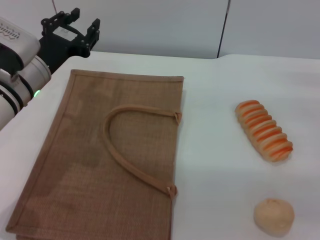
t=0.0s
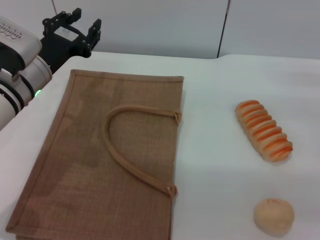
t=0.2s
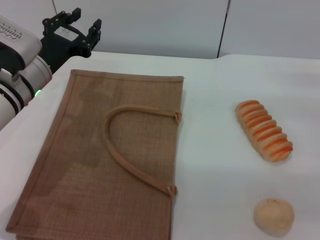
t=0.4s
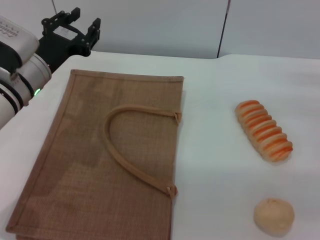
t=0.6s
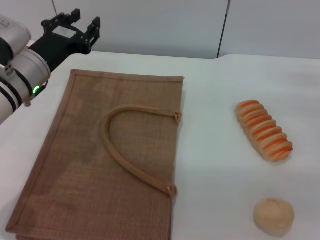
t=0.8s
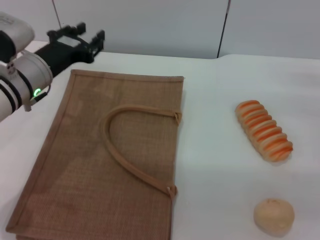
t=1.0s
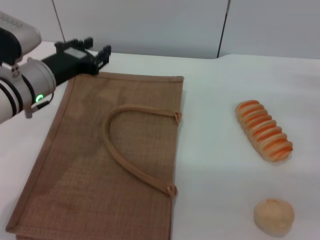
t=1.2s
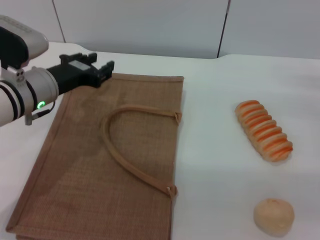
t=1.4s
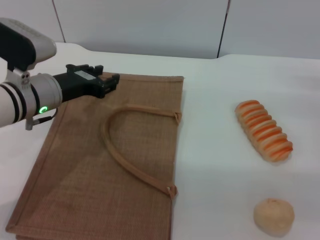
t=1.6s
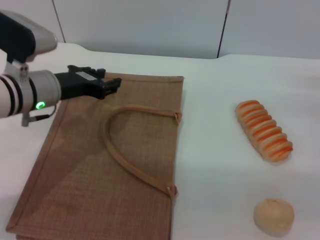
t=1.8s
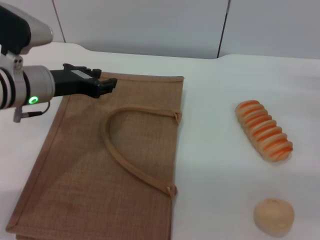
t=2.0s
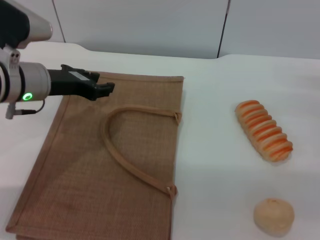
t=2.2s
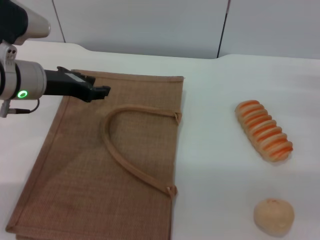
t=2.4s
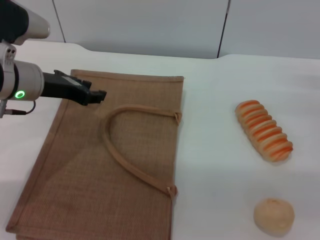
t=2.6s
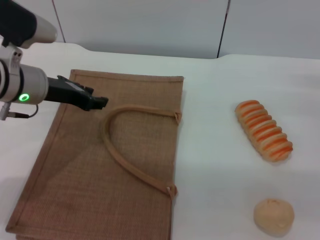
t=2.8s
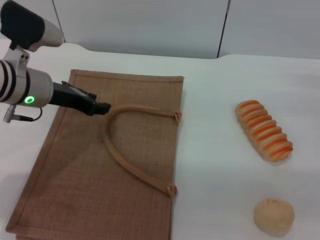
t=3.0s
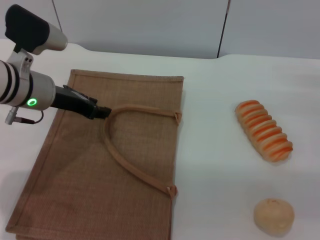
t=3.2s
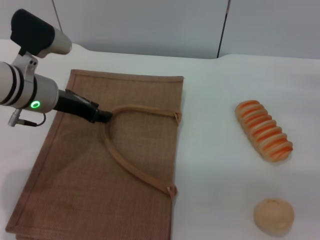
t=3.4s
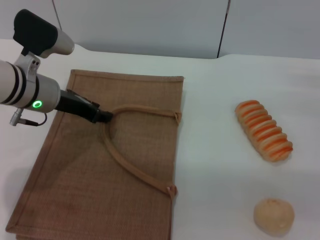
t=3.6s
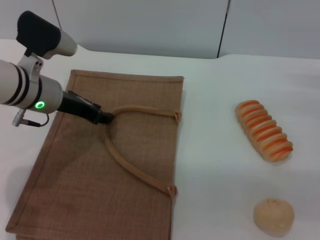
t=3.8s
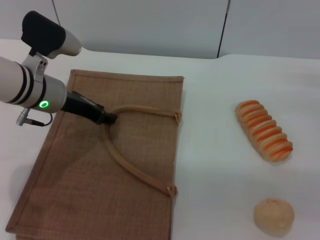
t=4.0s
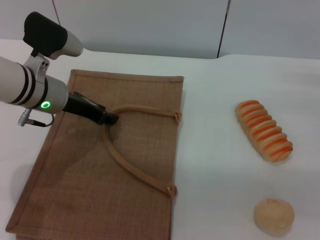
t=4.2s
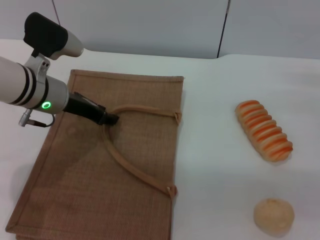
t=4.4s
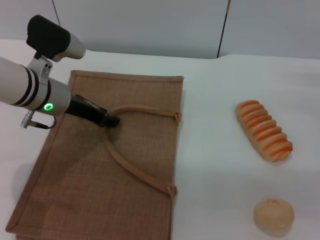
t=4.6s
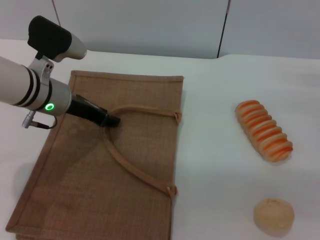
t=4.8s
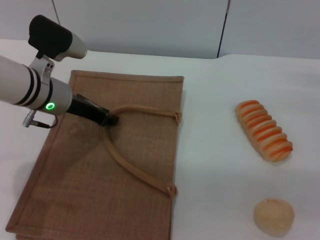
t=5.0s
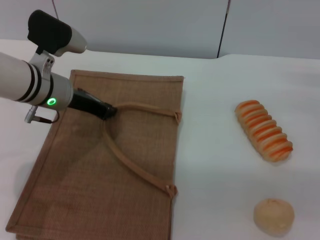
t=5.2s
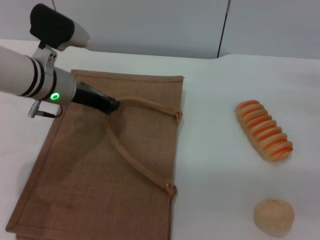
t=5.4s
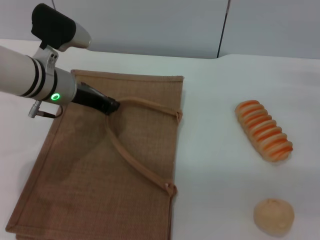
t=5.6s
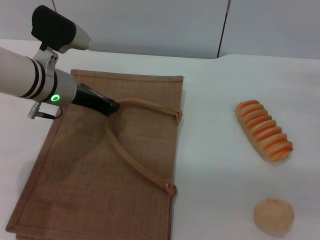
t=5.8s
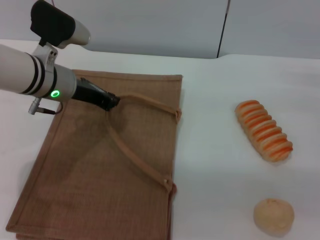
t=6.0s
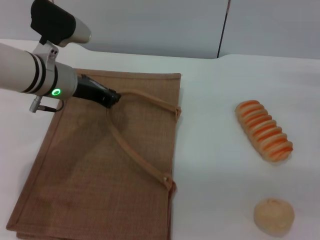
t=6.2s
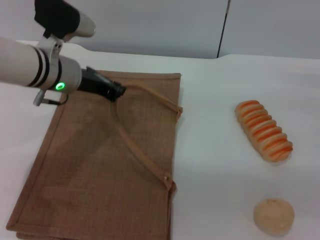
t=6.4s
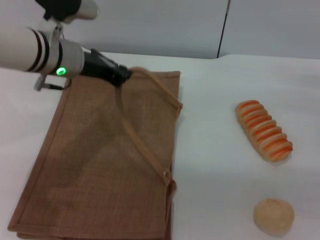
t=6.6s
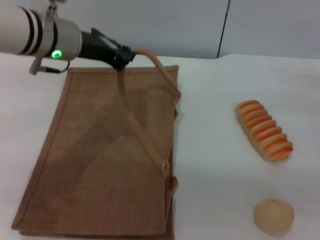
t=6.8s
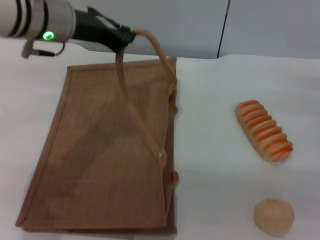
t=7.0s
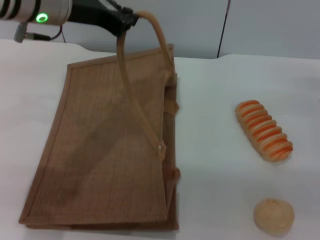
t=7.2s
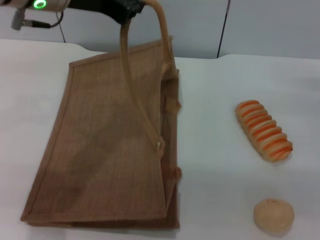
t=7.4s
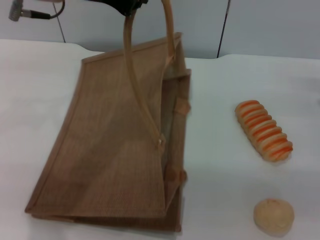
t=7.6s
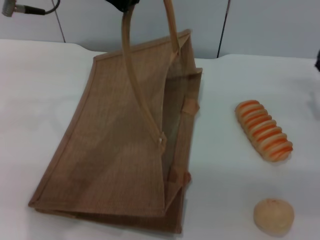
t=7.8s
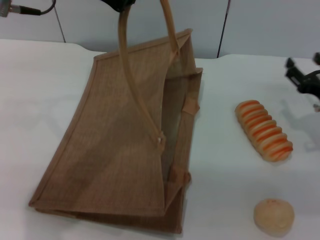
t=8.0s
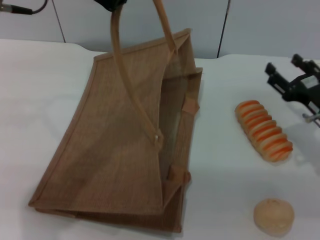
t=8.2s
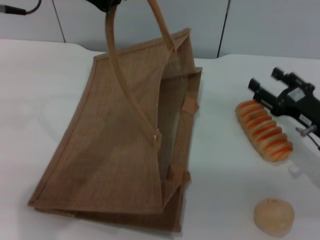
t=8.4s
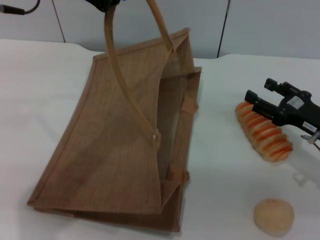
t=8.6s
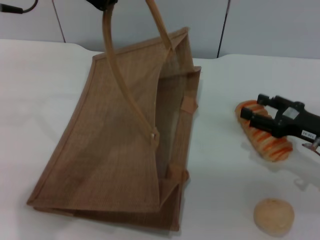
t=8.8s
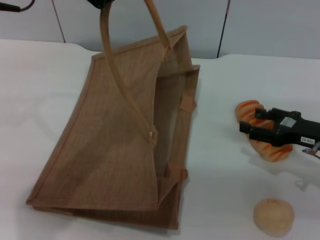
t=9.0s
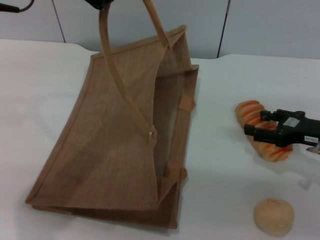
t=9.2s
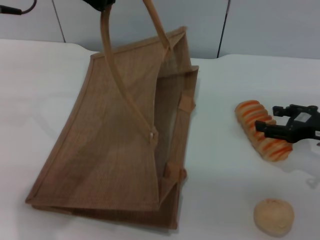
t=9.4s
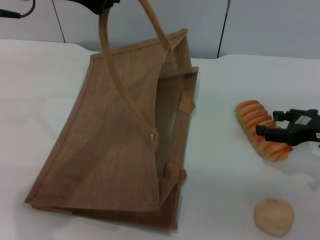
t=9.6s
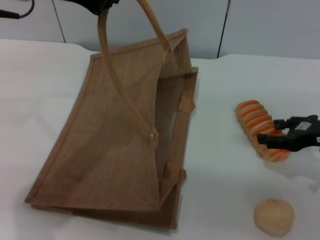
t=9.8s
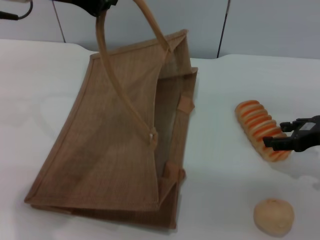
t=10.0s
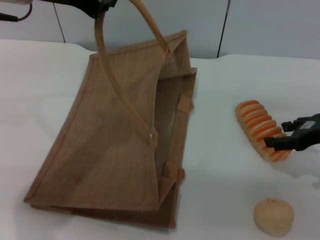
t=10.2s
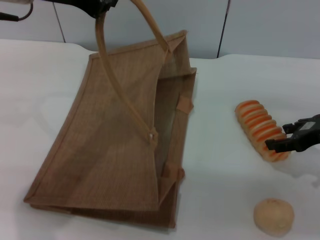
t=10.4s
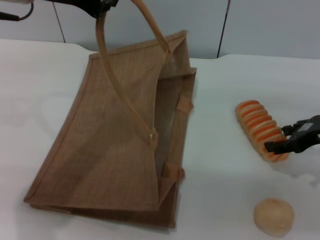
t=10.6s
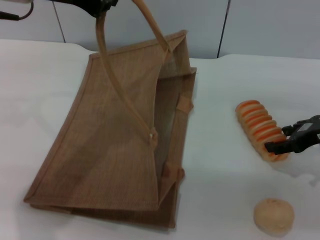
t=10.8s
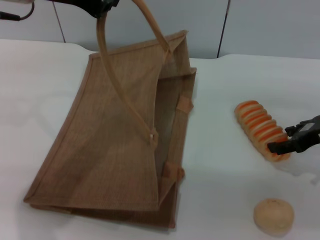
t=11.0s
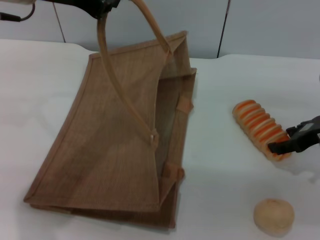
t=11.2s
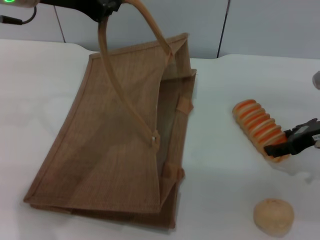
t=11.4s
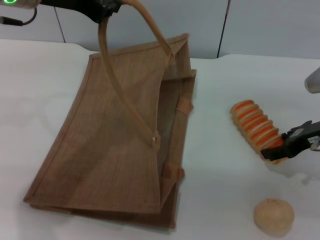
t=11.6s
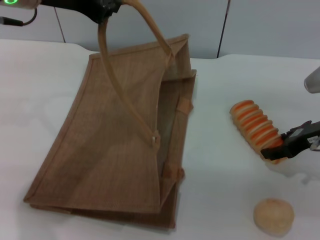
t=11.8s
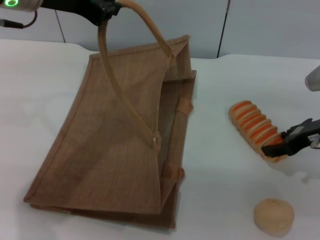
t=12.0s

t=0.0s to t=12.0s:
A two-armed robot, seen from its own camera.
Task of the whole recording: pick up the bread and egg yolk pastry from the table and place it in the brown handbag.
Step, t=0.0s to t=7.8s: Lift the woven bag with the left gripper to open it.
t=3.0s to t=4.4s: The grippers move only a little.
t=4.4s to t=6.0s: The left gripper closes.
t=6.0s to t=7.6s: The left gripper heads upward, covering roughly 15 cm.
t=9.0s to t=10.4s: The right gripper travels upward by approximately 5 cm.
t=10.4s to t=12.0s: There are only small adjustments of the grippers.

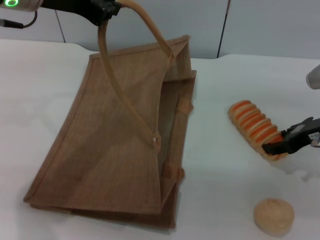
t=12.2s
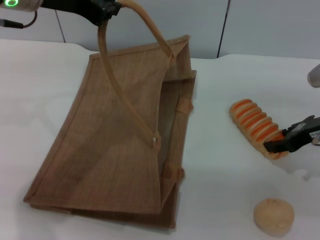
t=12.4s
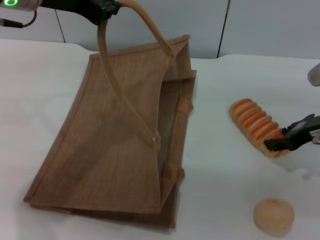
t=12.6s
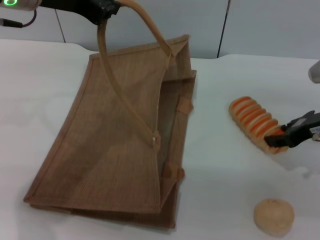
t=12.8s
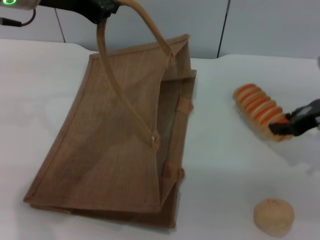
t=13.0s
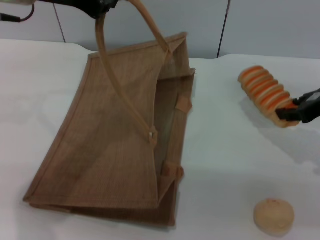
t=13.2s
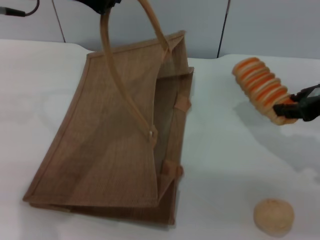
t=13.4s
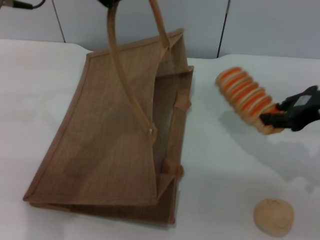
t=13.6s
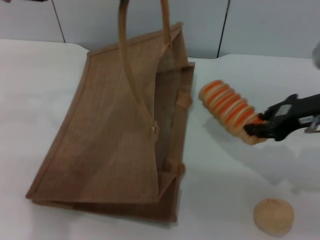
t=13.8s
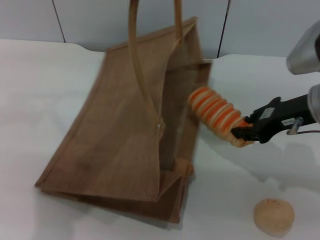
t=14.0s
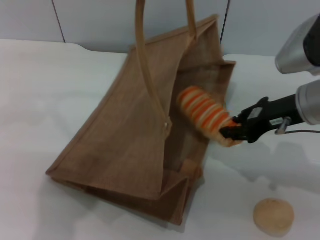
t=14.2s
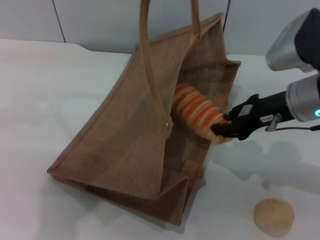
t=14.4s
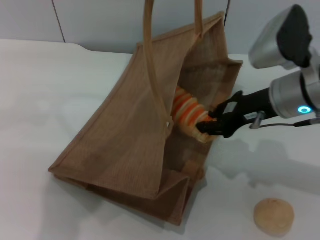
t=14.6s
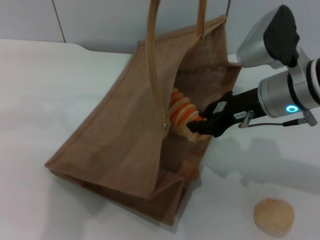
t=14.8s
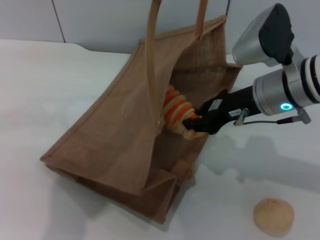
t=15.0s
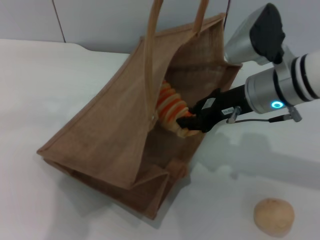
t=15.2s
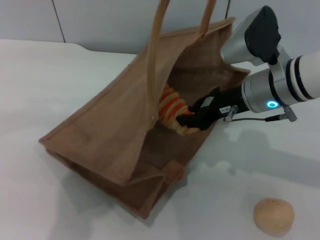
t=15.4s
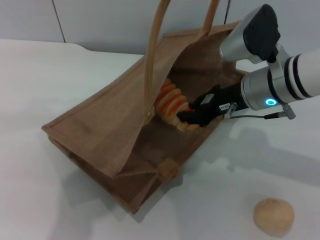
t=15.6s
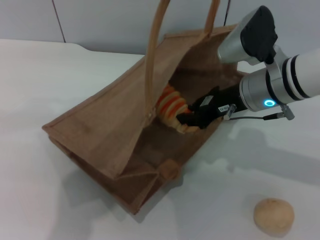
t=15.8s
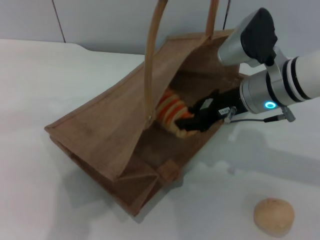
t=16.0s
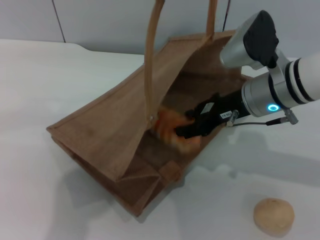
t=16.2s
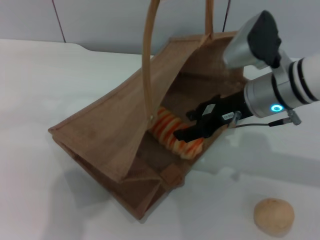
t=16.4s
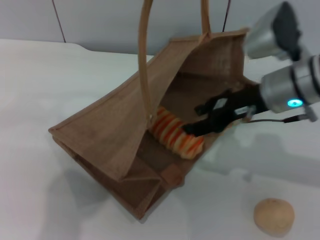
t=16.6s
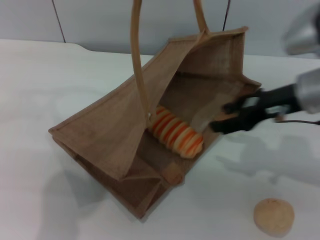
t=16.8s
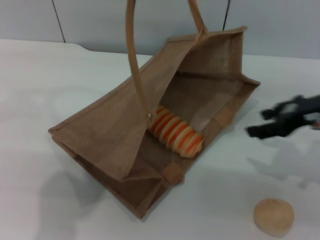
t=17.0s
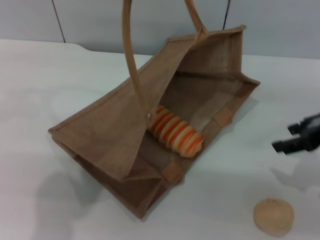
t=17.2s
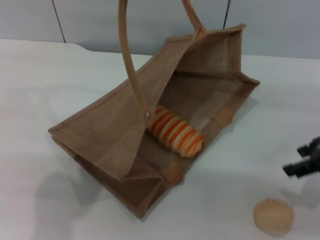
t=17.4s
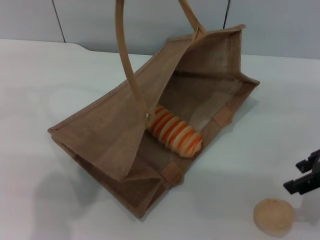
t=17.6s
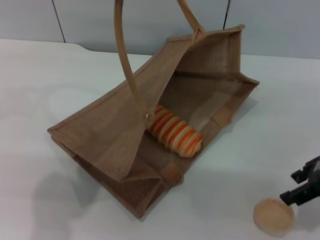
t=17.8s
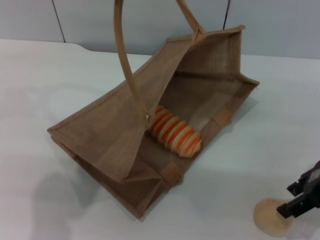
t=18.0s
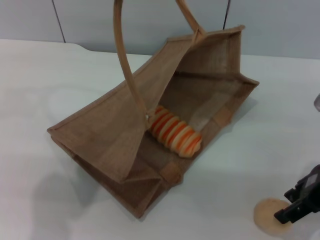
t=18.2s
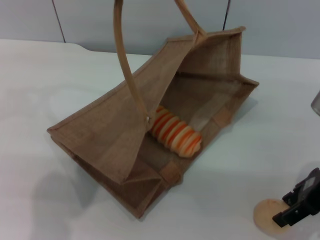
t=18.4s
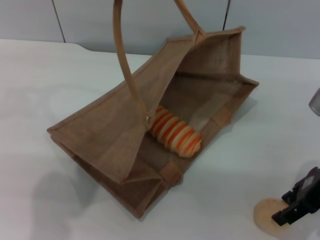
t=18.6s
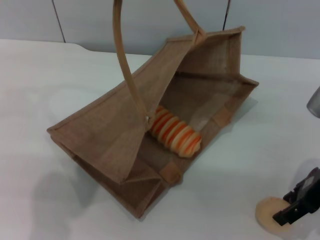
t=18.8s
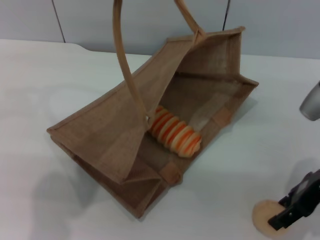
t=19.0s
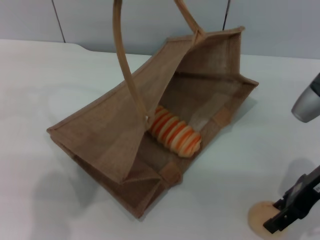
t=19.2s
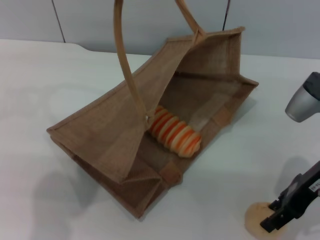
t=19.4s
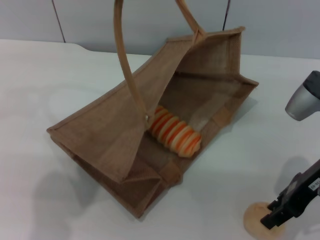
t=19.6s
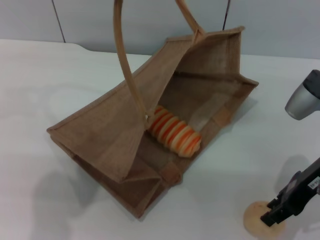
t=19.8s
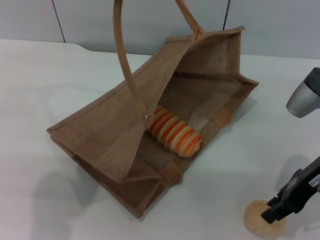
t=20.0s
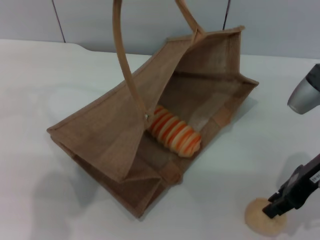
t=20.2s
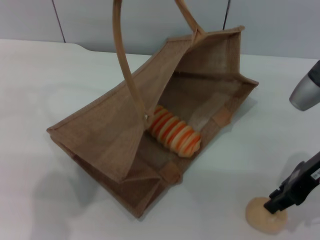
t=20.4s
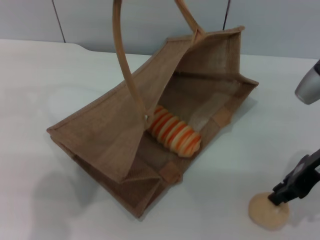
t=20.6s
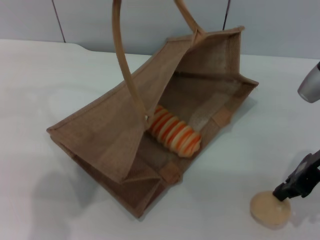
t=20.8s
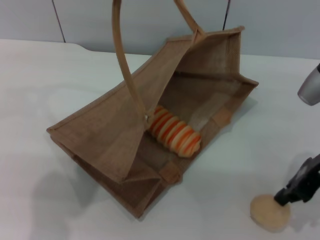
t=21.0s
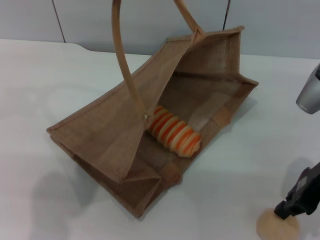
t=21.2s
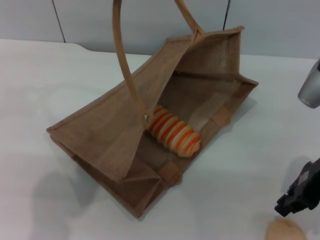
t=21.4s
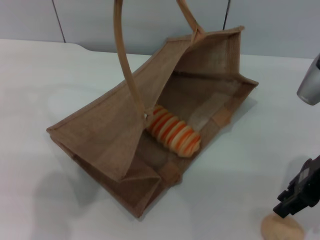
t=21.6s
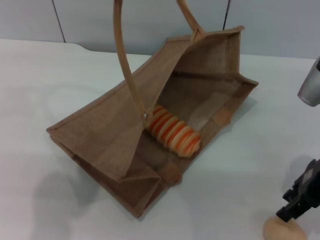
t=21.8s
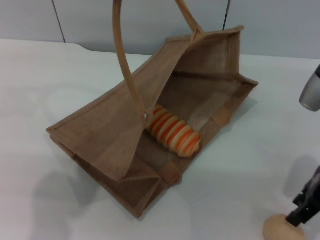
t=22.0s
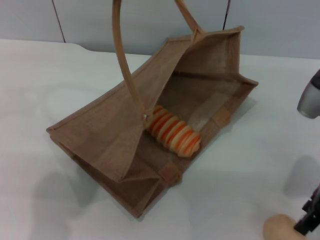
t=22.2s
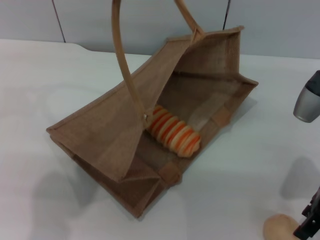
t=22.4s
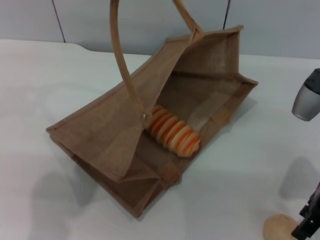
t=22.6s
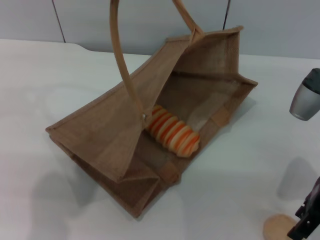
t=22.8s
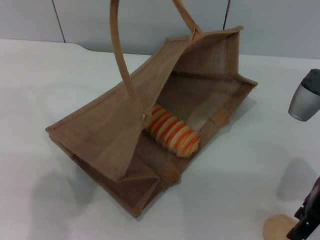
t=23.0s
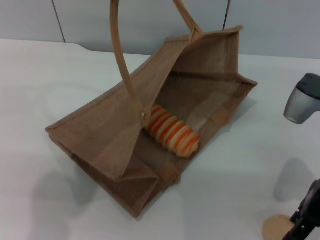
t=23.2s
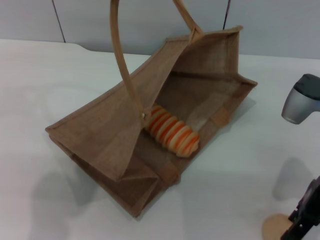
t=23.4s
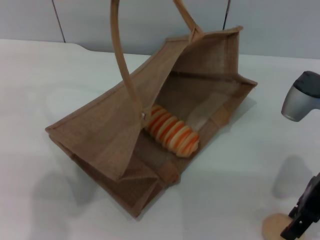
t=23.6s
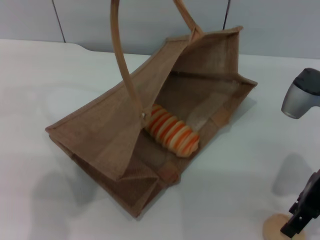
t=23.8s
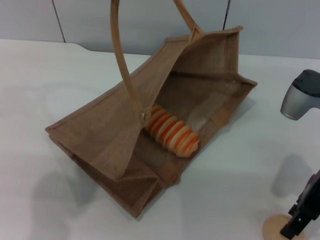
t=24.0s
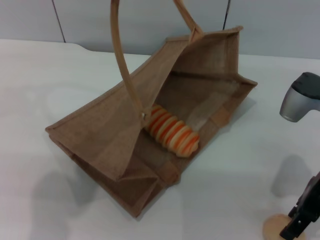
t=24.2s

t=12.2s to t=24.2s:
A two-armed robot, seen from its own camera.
Task of the whole recording: pick up the bread and egg yolk pastry from the table and place it in the brown handbag.
Step, t=13.2s to t=16.4s: Place the bread into the woven bag with the right gripper.
t=12.2s to t=13.8s: The right gripper goes some 5 cm upward, and closes its fingers.
t=13.8s to t=15.2s: The left gripper ends up approximately 5 cm from where it was, while the right gripper moves to the left, approximately 10 cm.
t=15.2s to t=16.6s: The right gripper opens.
t=16.6s to t=18.2s: The right gripper moves to the right and backward, roughly 10 cm.
t=18.2s to t=19.8s: The grippers stay close to where they were, moving slightly.
t=19.8s to t=21.2s: The right gripper closes up.
t=21.2s to t=22.6s: The right gripper opens.
t=22.6s to t=24.2s: The grippers stay close to where they were, moving slightly.
